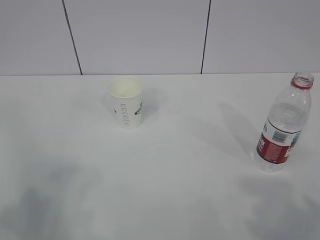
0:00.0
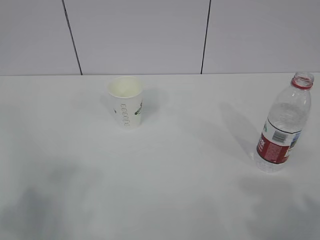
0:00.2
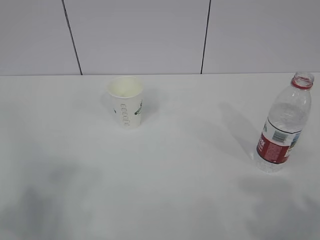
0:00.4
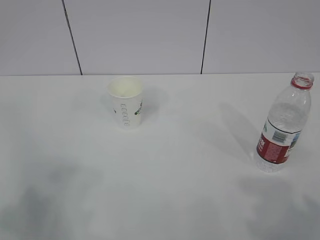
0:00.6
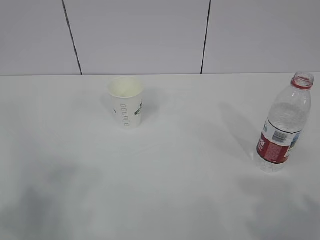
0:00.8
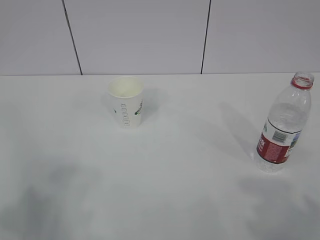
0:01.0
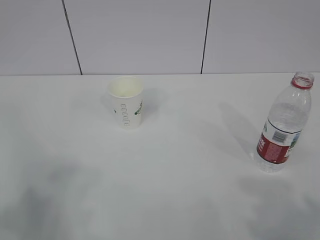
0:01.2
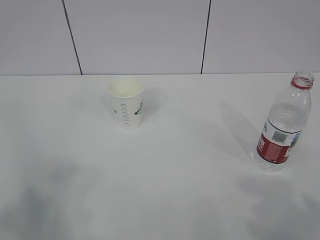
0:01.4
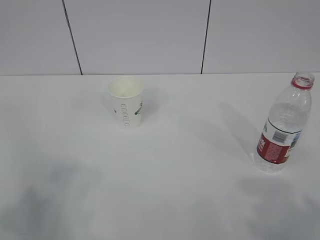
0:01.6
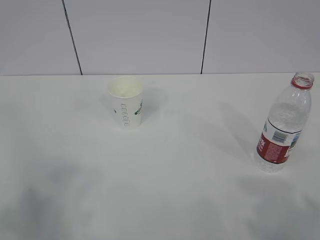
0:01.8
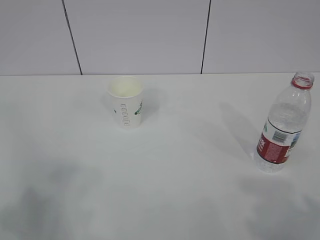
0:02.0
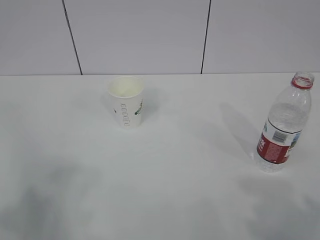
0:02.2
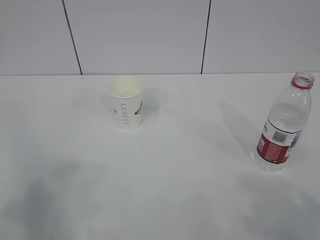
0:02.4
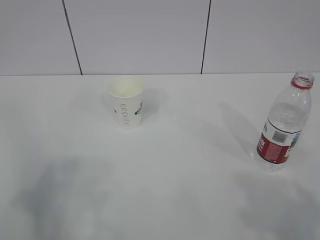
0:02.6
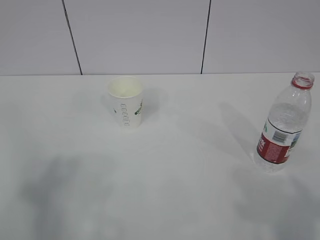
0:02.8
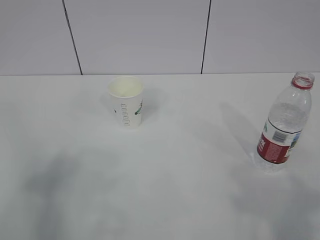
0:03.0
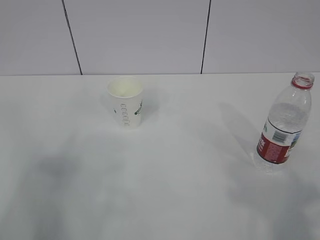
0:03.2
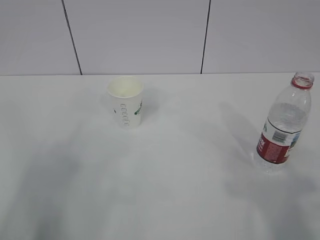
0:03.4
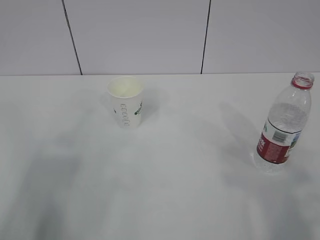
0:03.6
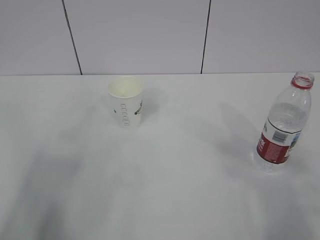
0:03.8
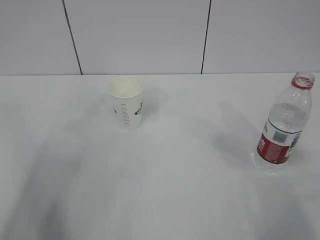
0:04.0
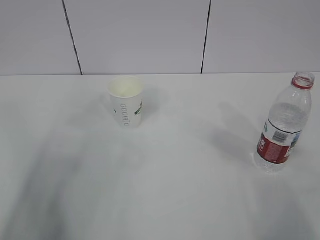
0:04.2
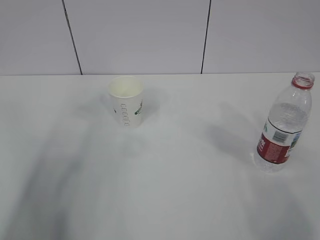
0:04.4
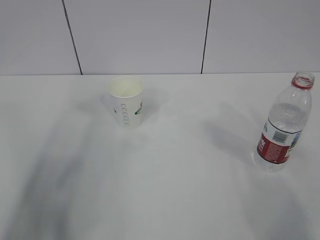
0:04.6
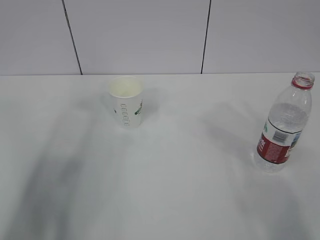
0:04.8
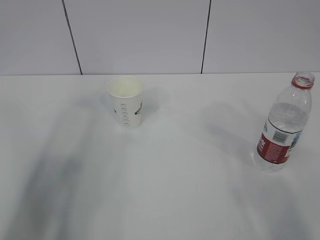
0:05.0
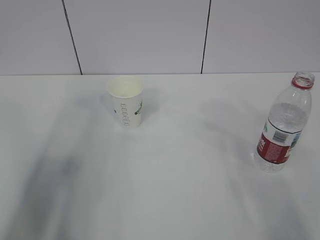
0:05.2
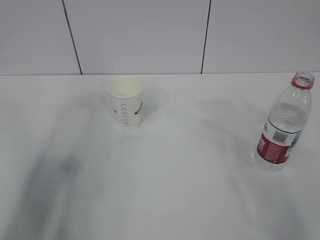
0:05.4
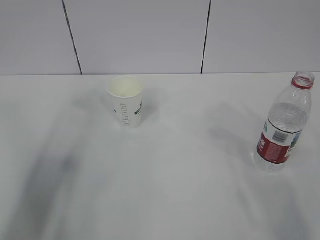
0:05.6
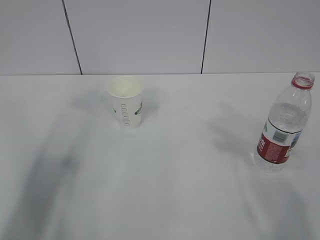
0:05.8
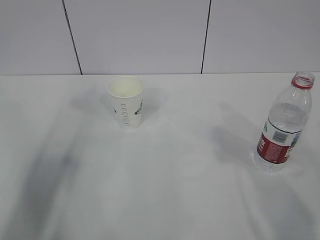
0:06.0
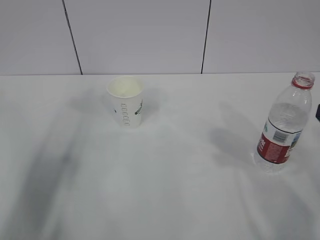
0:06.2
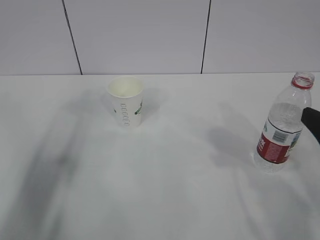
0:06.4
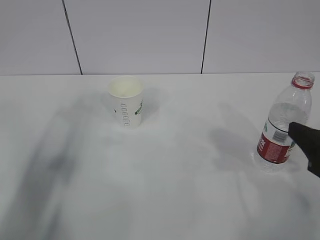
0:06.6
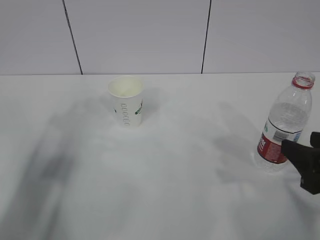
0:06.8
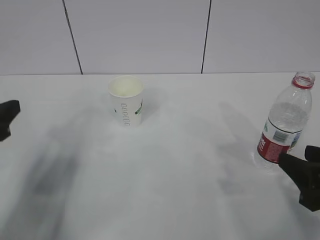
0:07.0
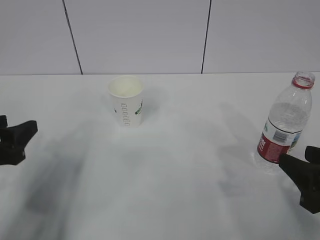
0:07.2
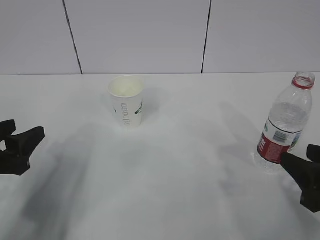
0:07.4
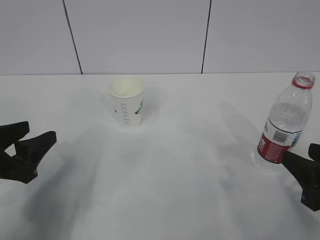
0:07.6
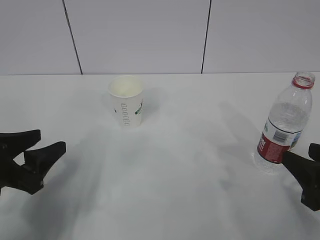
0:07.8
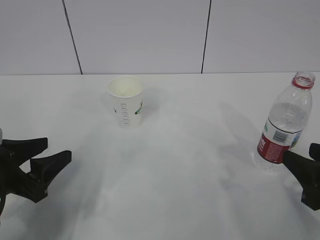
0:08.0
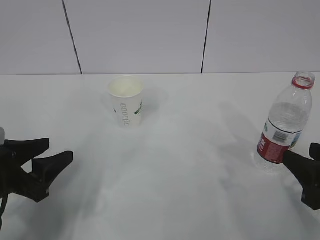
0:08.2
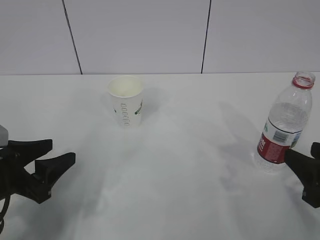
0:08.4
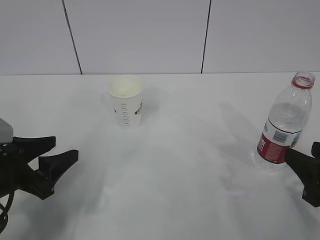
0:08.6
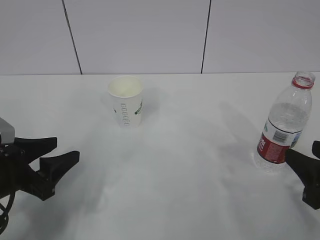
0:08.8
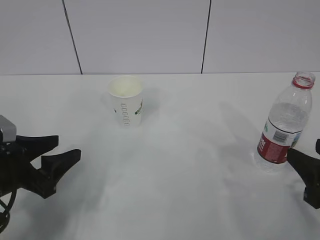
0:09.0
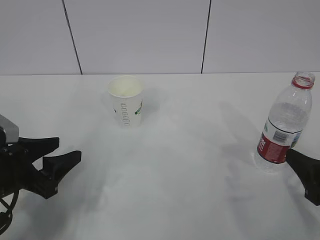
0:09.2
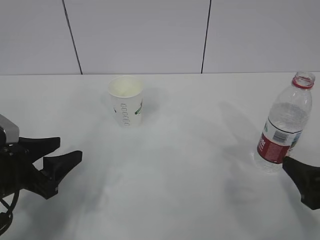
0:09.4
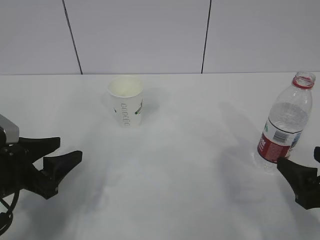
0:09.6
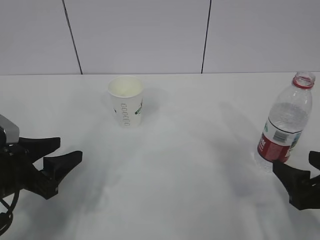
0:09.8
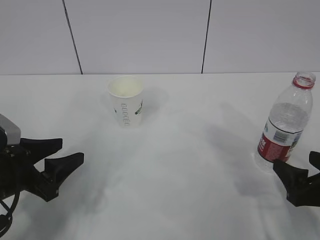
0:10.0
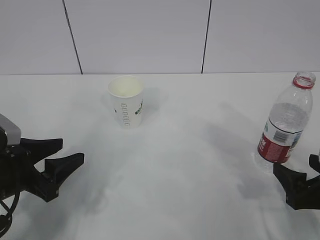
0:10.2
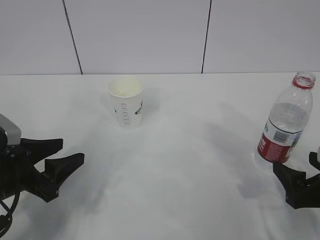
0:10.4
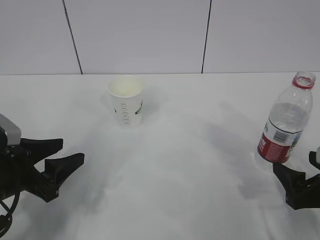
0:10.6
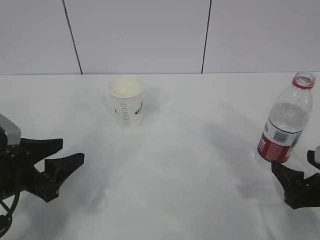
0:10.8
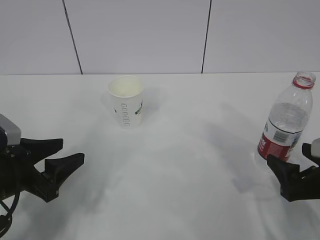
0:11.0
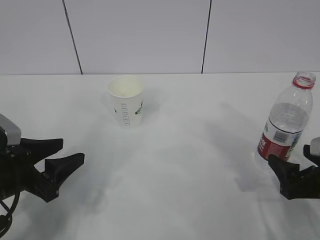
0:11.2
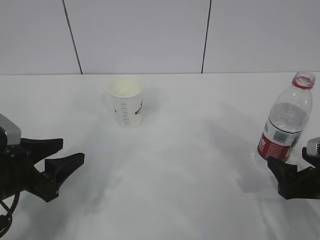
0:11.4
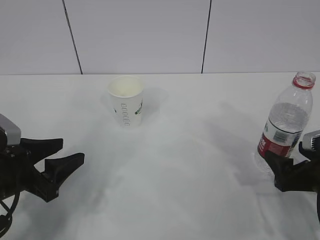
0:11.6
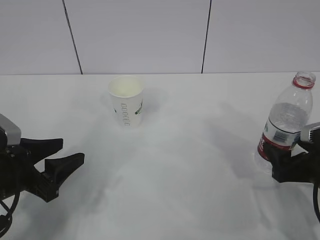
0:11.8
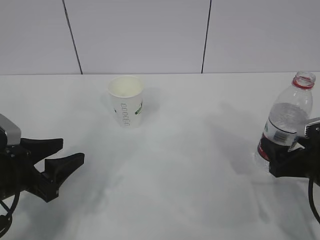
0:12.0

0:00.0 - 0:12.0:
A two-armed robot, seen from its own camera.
0:06.0 - 0:07.6: The left gripper goes some 15 cm downward; the right gripper moves downward, roughly 10 cm, and closes its fingers.
0:07.6 - 0:09.0: The grippers make only small movements.
0:09.0 - 0:10.4: The right gripper moves downward, some 5 cm, and opens up.
0:10.4 - 0:12.0: The right gripper travels forward by approximately 5 cm.

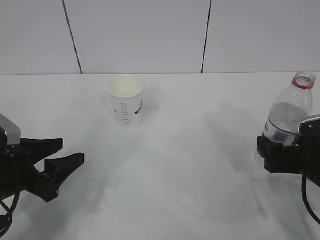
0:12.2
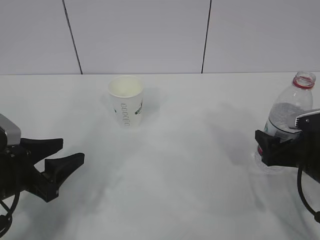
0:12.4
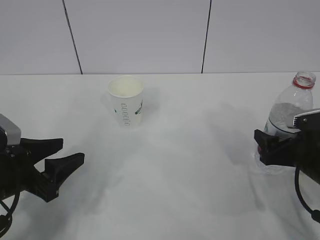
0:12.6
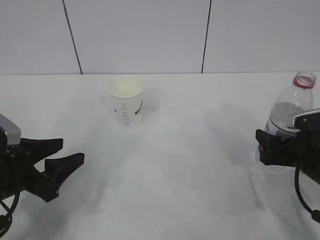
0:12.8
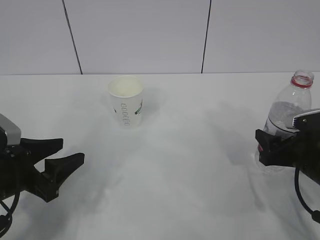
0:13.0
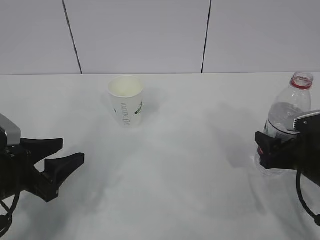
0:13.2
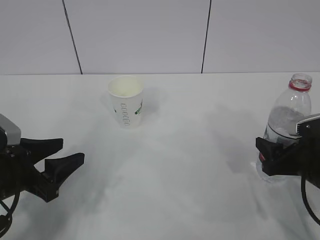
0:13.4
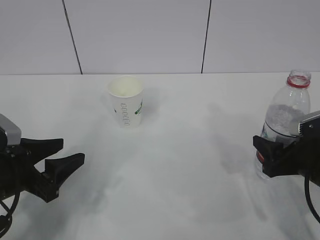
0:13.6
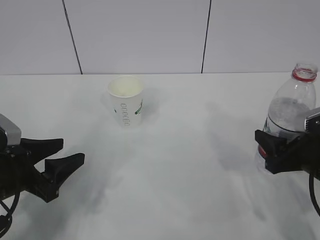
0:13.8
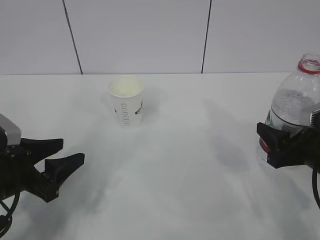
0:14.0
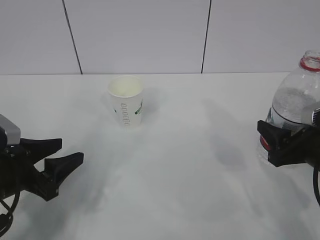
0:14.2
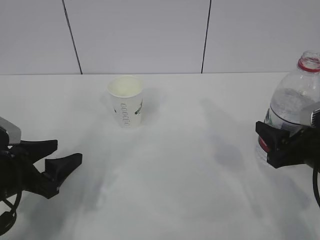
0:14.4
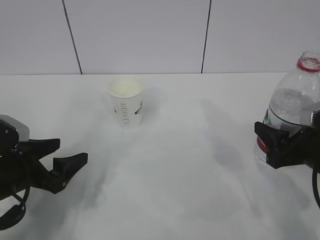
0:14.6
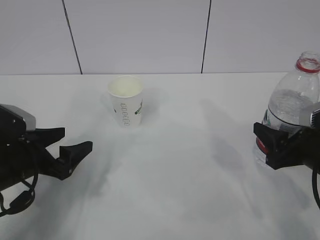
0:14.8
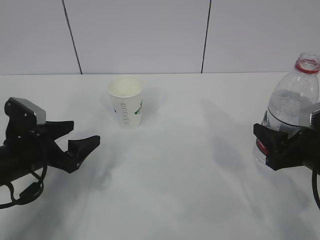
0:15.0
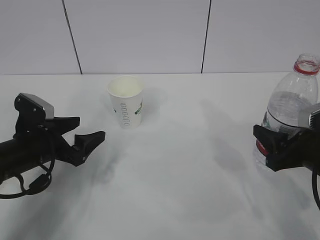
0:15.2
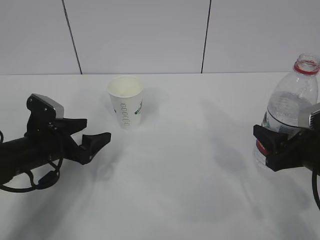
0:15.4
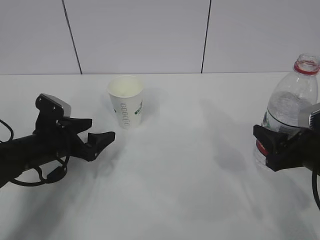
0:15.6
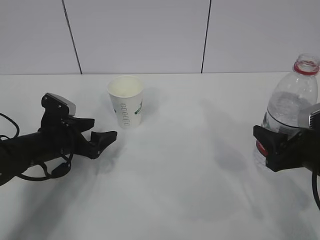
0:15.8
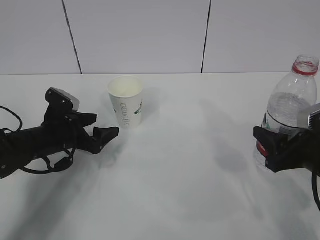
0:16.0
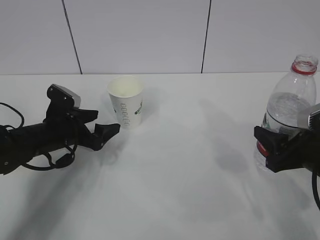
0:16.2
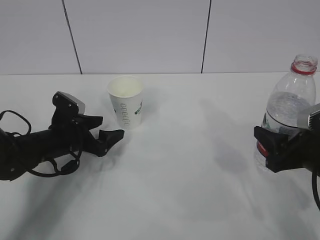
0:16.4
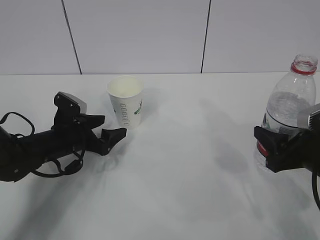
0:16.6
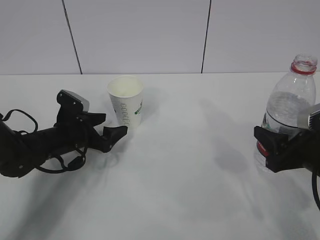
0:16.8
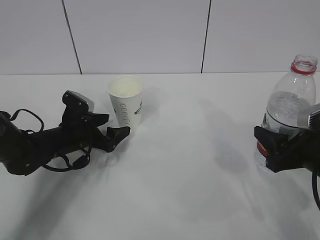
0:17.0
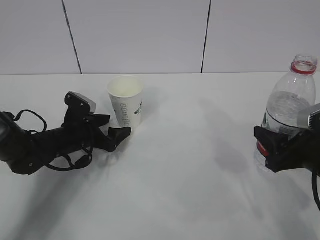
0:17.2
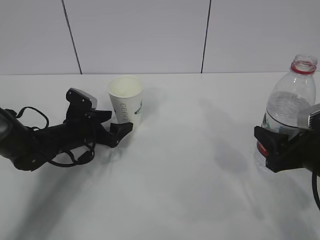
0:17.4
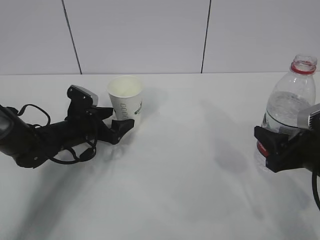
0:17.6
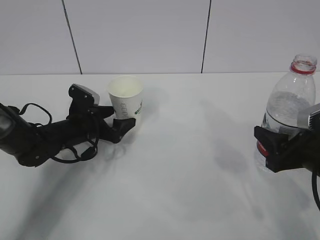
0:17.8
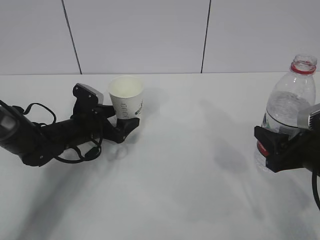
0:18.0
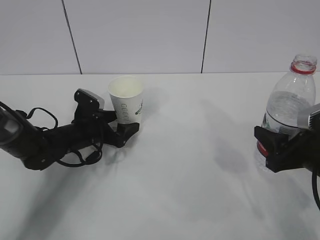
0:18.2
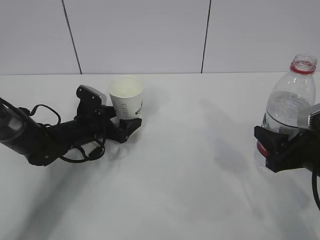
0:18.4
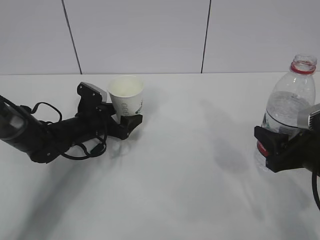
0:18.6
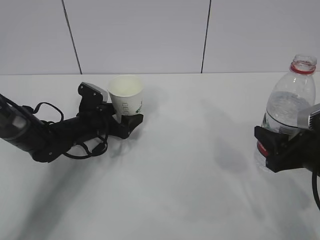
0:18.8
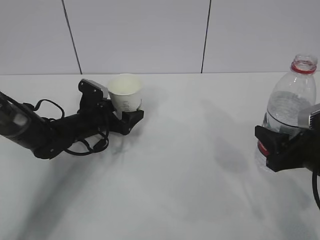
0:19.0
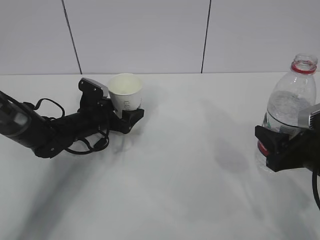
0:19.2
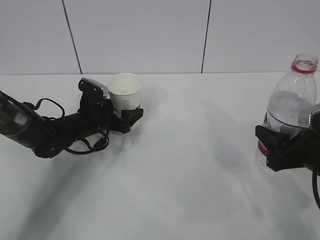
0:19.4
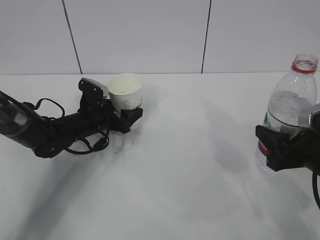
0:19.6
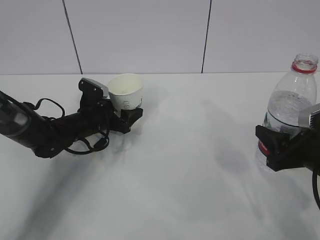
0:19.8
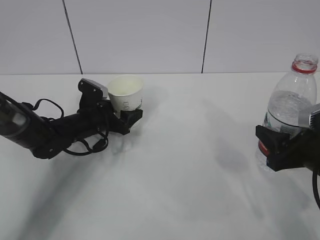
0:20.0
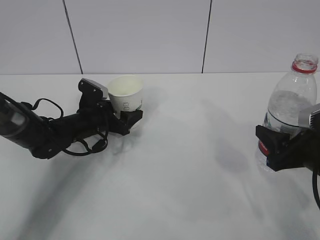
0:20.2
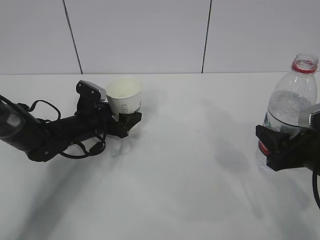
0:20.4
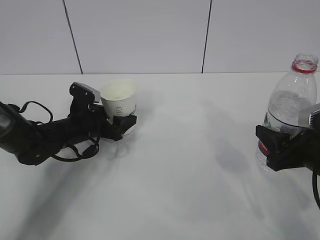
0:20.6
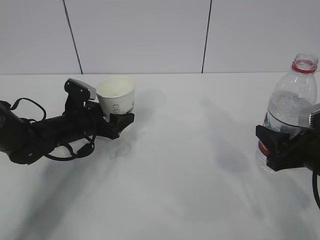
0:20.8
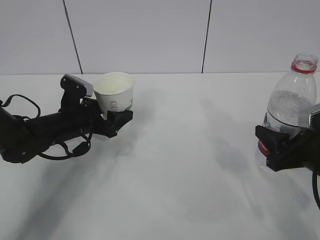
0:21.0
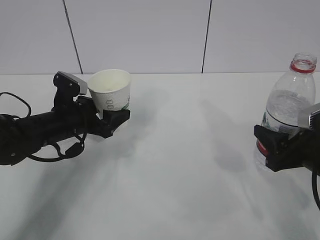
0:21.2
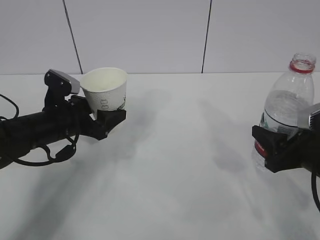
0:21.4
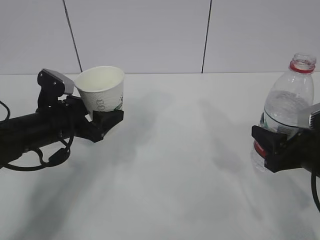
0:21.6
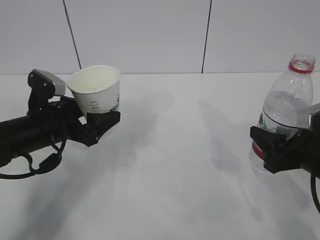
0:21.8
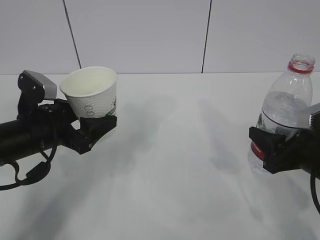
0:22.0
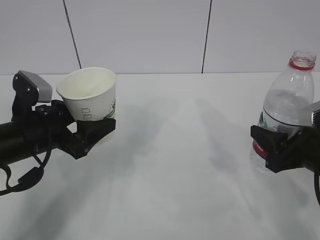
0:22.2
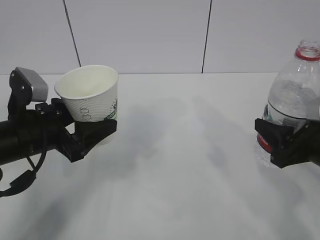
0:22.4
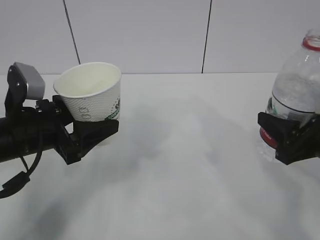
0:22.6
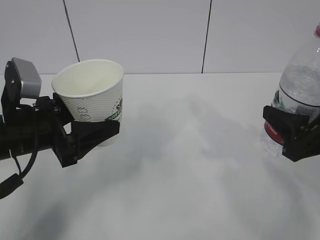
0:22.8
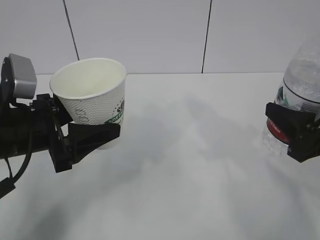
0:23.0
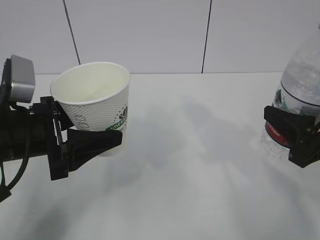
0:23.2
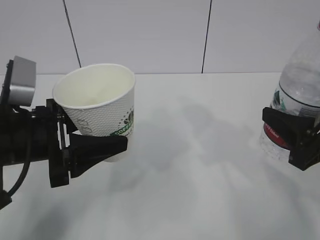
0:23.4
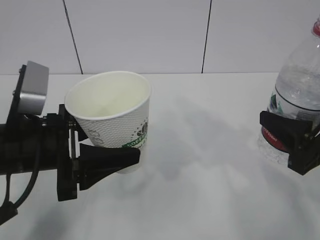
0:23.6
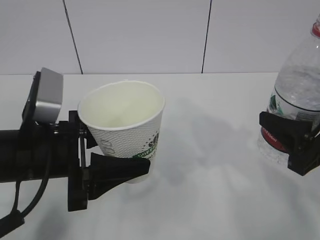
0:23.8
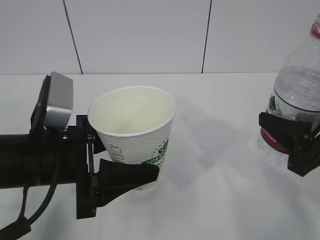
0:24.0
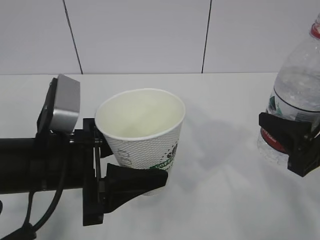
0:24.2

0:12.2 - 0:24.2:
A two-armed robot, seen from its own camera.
0:12.2 - 0:13.8: The right gripper closes.
0:13.8 - 0:15.2: The left gripper heads forward, covering about 10 cm, and opens.
0:15.2 - 0:16.6: The left gripper heads forward, covering about 5 cm.
0:16.6 - 0:18.2: There are only small adjustments of the grippers.
0:18.2 - 0:19.8: The left gripper closes its fingers.
0:19.8 - 0:21.2: The left gripper goes approximately 10 cm backward and upward.
0:21.2 - 0:22.6: The left gripper moves backward and upward, about 15 cm. Meanwhile the right gripper shifts by approximately 5 cm.
0:22.6 - 0:24.2: The left gripper moves to the right and backward, approximately 10 cm.
